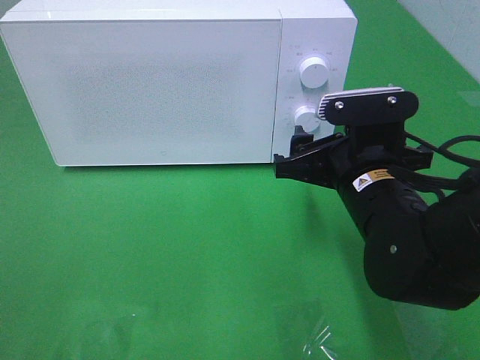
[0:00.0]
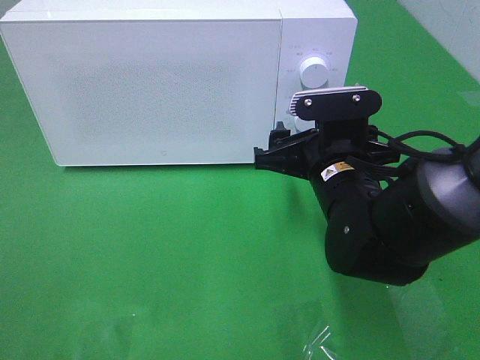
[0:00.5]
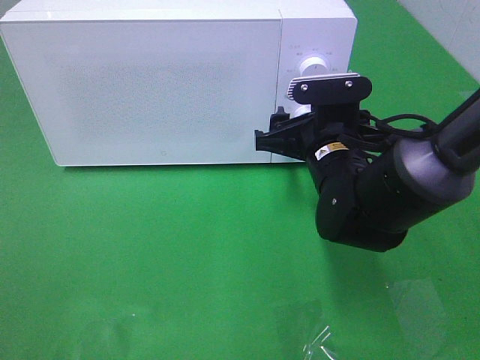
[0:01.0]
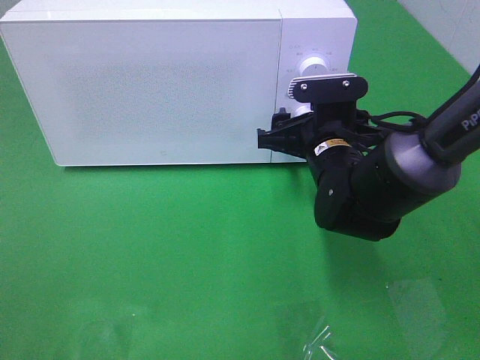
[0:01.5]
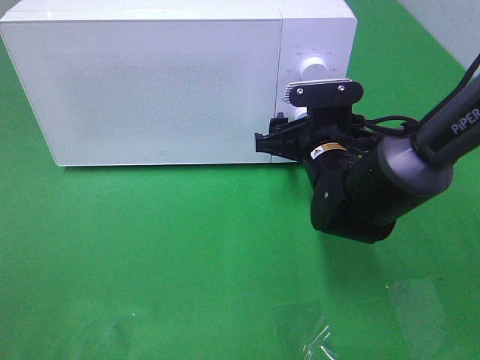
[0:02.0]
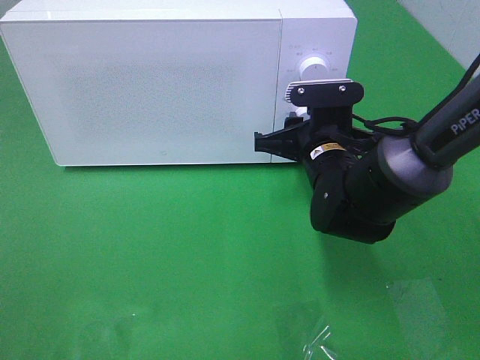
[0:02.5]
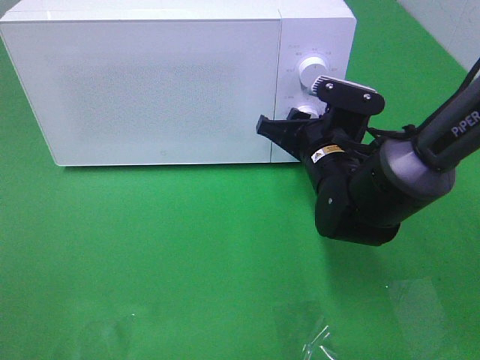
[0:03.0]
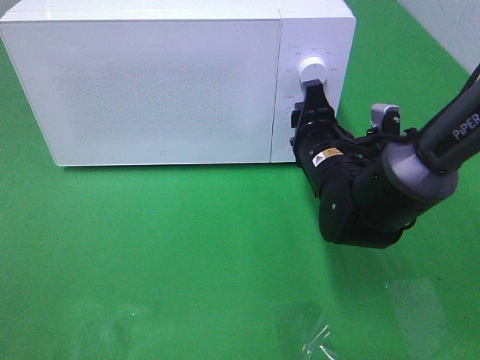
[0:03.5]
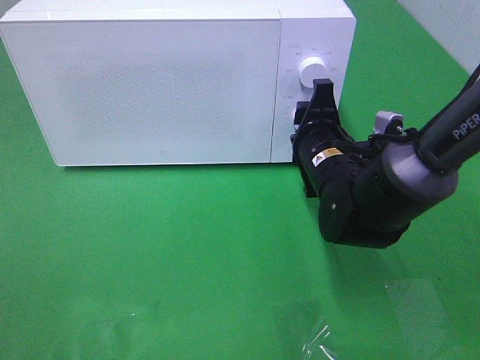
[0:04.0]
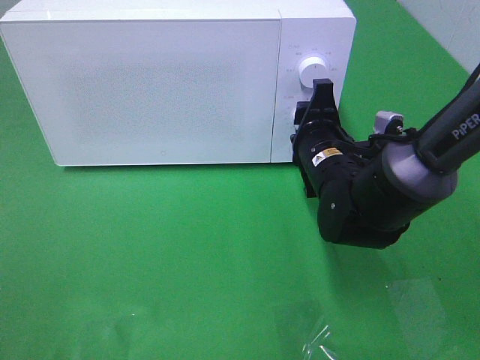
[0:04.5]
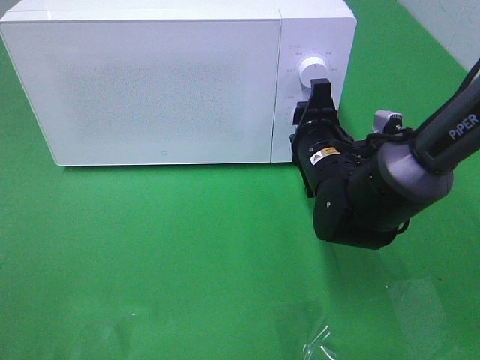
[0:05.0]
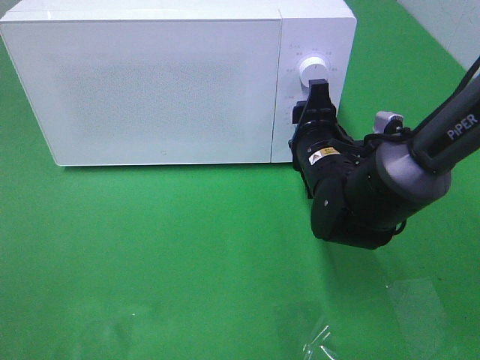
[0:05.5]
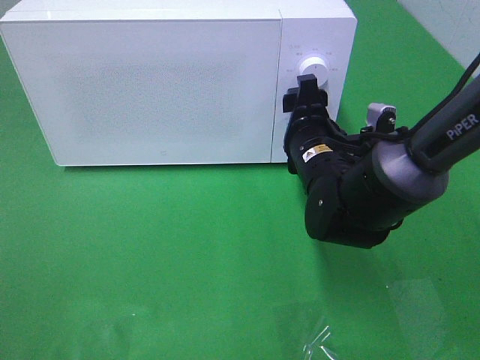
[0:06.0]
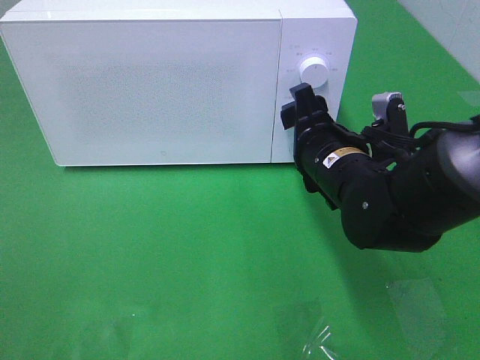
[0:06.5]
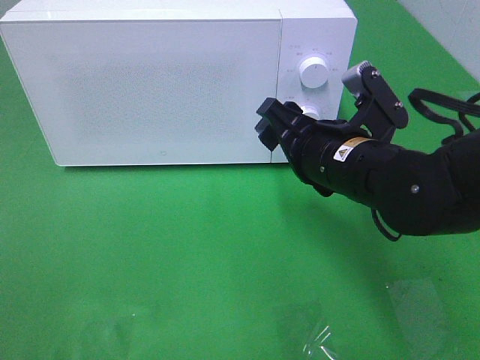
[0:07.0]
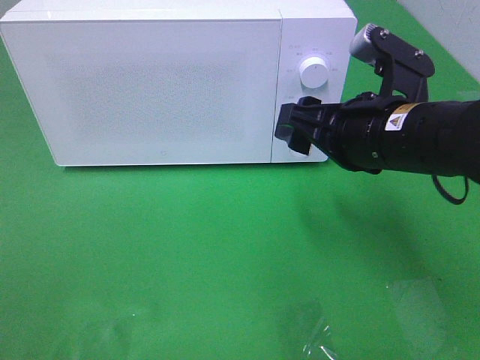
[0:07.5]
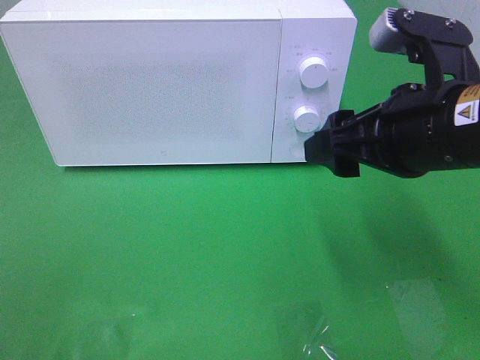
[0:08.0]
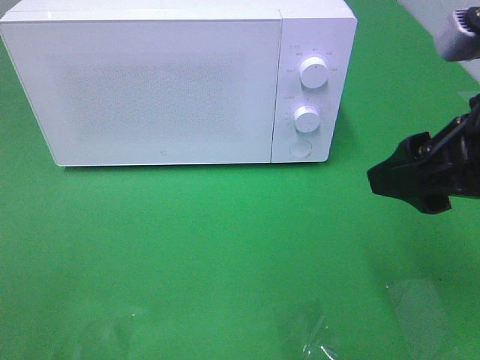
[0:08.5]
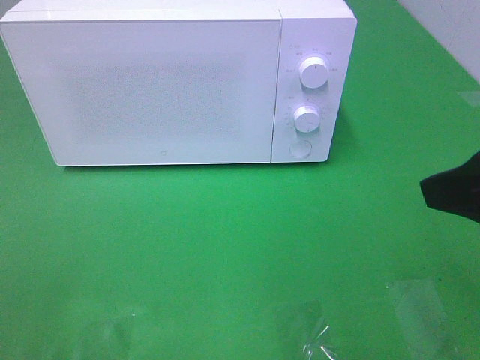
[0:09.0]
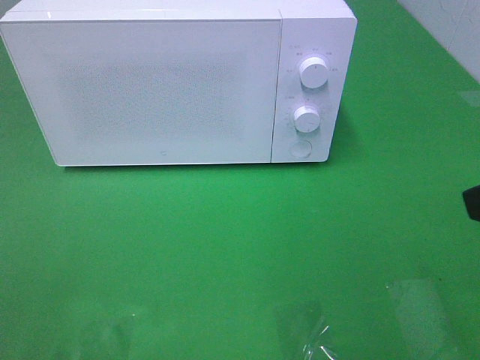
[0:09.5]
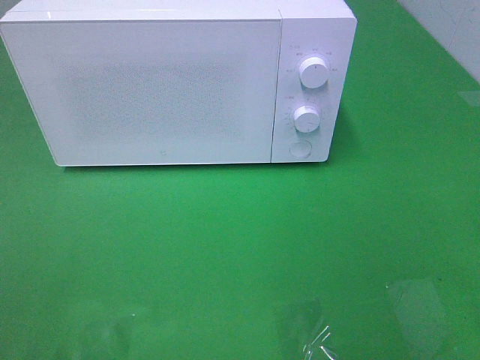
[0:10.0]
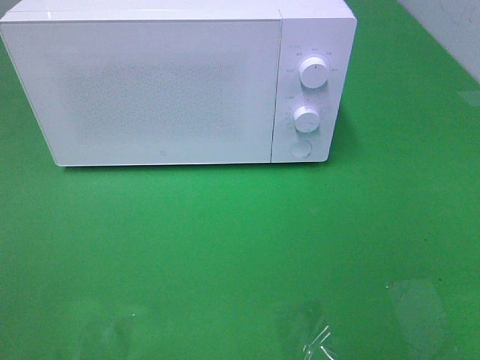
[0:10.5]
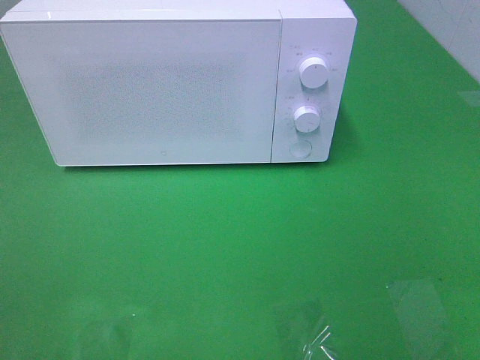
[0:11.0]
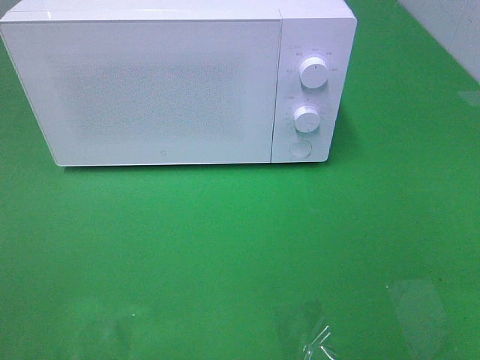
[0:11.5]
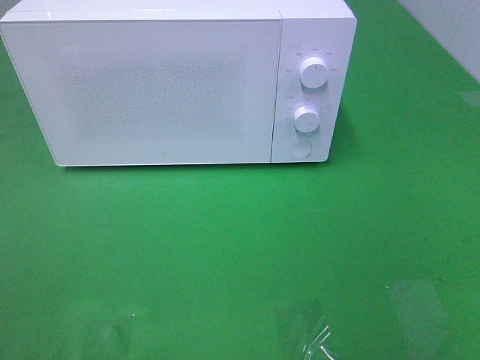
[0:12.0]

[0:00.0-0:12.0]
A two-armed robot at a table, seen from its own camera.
Task of the whole recording: Heat the burger.
Step, 0:00.0 to 0:06.0: Right hand: twist timer button.
0:00.0 to 0:02.0: The right gripper moves forward, some 10 cm.
0:02.0 to 0:04.0: The right gripper closes up.
0:04.0 to 0:06.0: The grippers stay close to where they were, moving slightly.
0:06.0 to 0:08.0: The right gripper moves upward, backward and to the right, some 20 cm.
0:08.0 to 0:10.0: The right gripper moves backward, to the right and upward, about 20 cm.

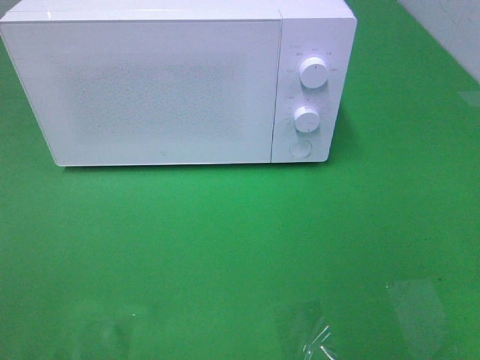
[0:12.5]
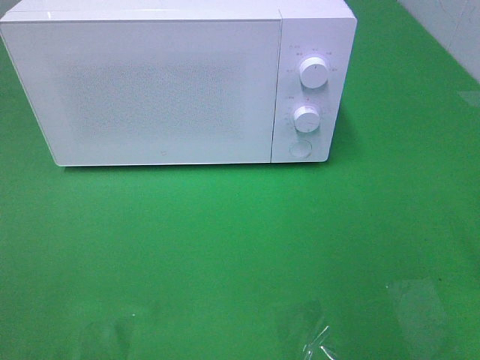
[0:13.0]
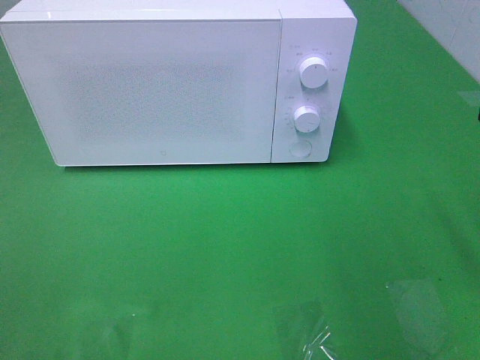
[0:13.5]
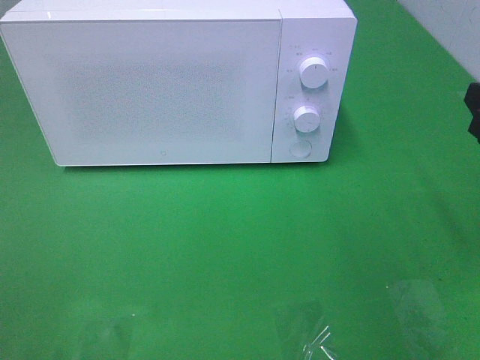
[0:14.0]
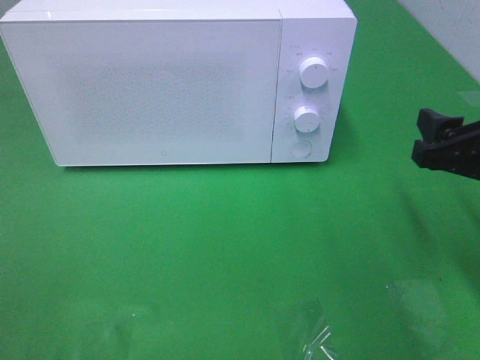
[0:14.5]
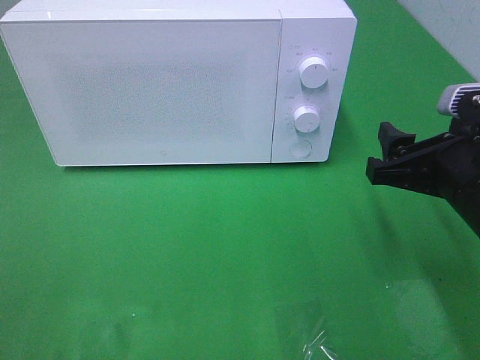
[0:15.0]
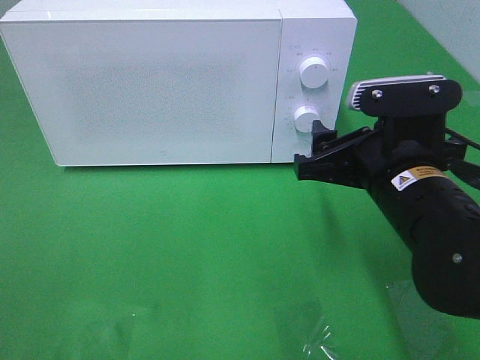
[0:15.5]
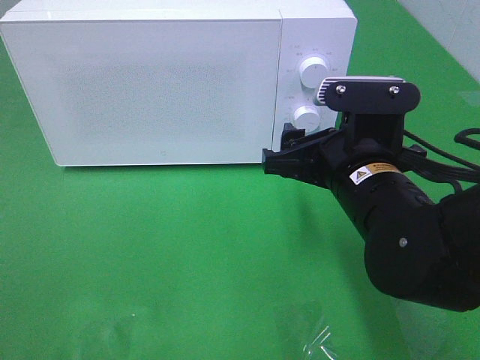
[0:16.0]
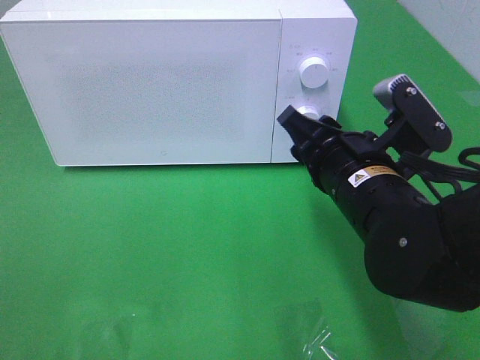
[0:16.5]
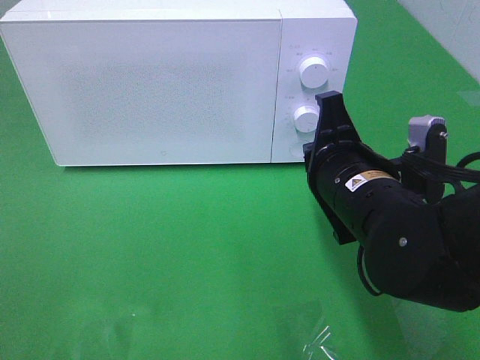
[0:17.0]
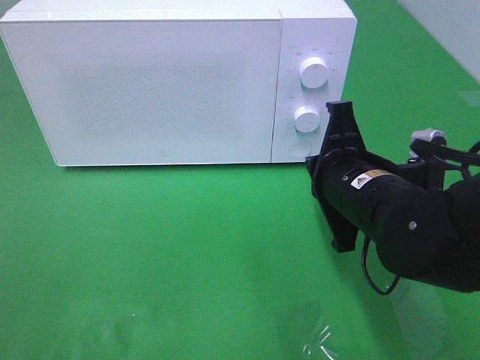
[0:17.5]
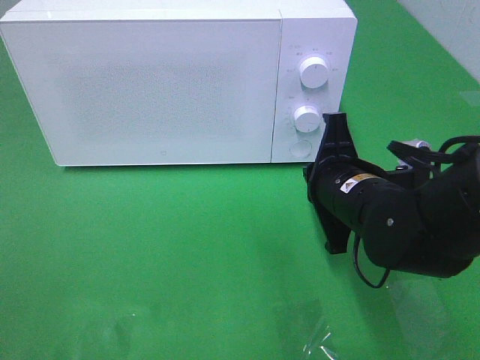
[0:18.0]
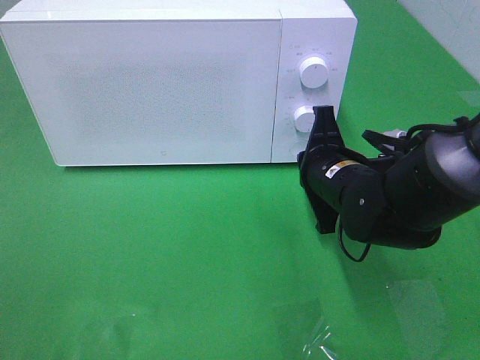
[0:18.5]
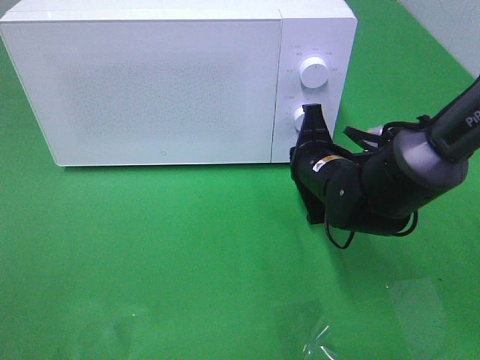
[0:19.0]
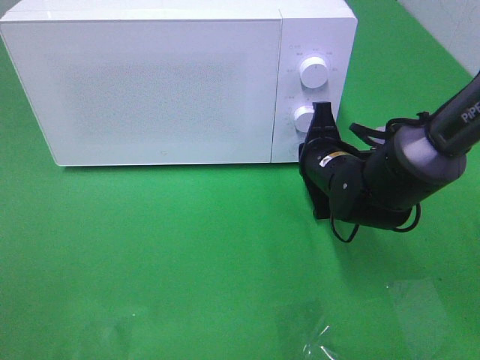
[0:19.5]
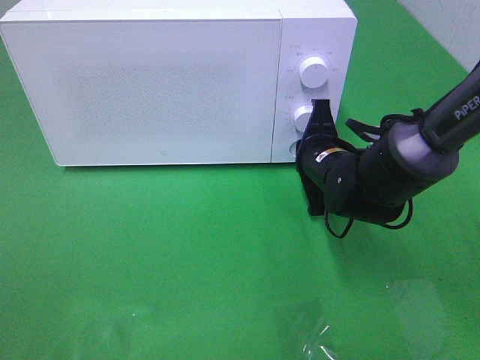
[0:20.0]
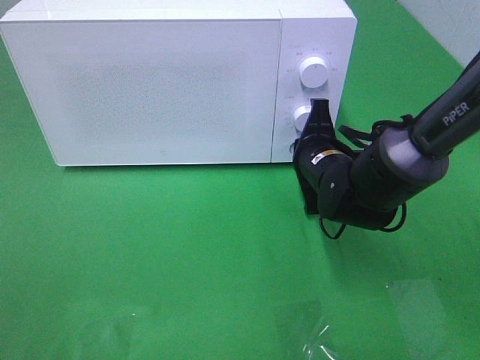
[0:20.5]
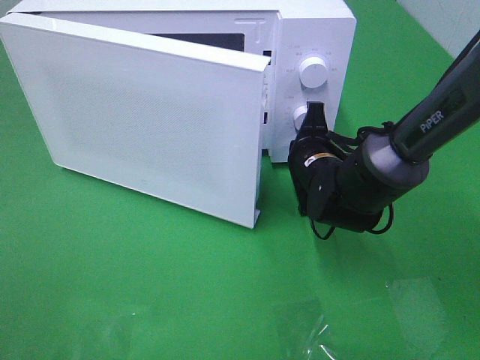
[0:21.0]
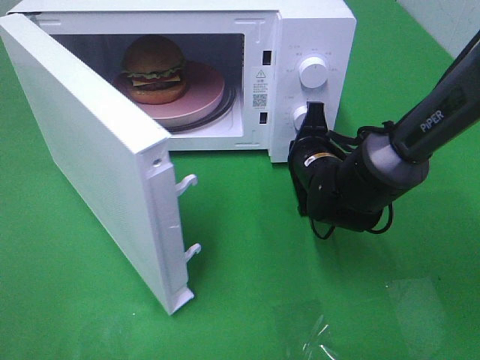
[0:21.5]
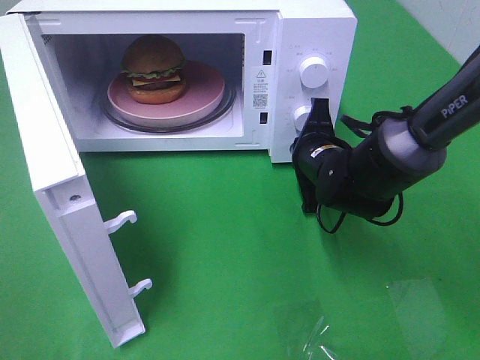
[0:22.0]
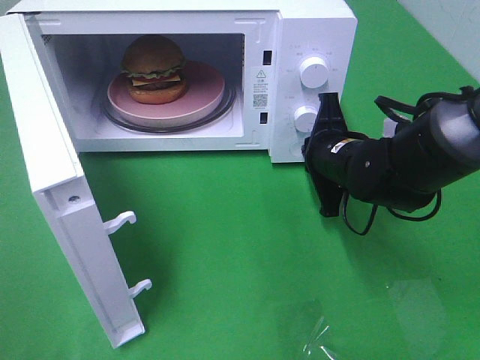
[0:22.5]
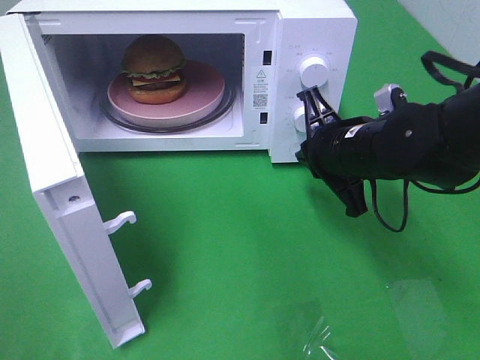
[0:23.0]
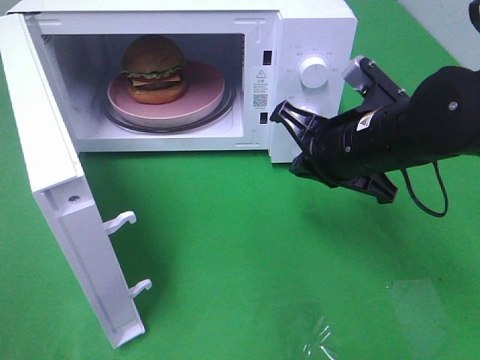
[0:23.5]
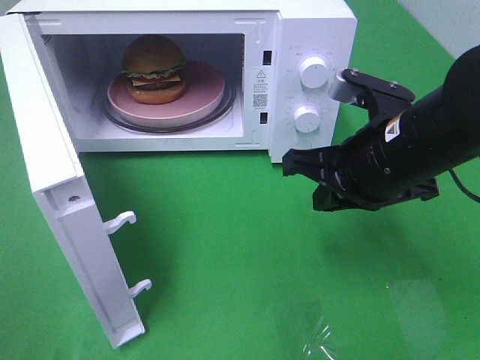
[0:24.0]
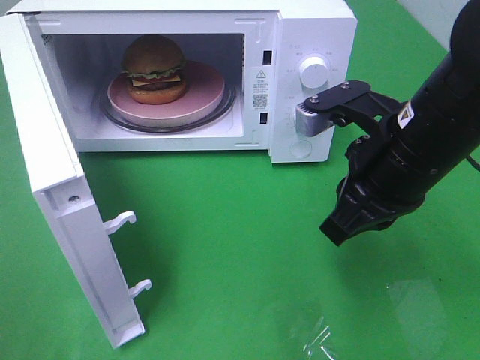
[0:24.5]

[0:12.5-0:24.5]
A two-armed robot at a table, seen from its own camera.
Task of the whole recording: Heat the burger.
Step, 0:12.5 to 0:22.5: Right hand: press the switch.
0:12.5 to 0:14.5: The right gripper shifts roughly 20 cm forward and downward.
0:14.5 to 0:16.5: The right gripper shifts roughly 15 cm to the left, and closes up.
0:16.5 to 0:18.5: The right gripper moves forward and downward, some 10 cm, and closes.
0:18.5 to 0:20.5: The right gripper ends up some 5 cm from where it was.
0:22.5 to 0:24.5: The right gripper heads upward and backward, covering about 15 cm.

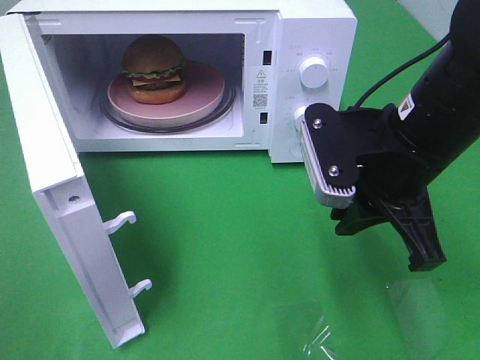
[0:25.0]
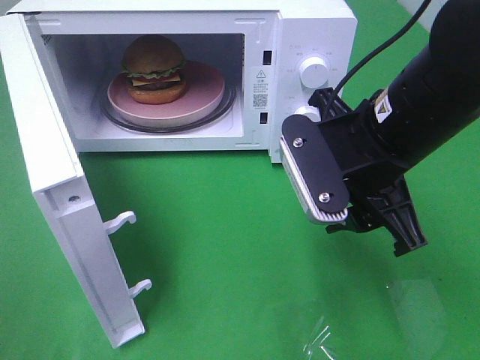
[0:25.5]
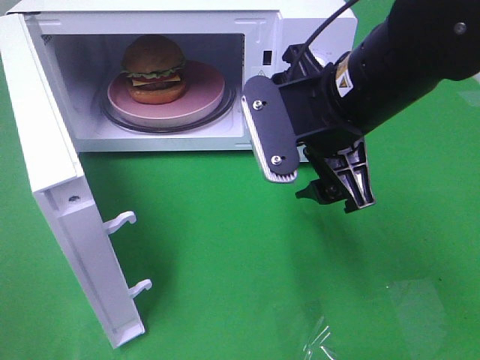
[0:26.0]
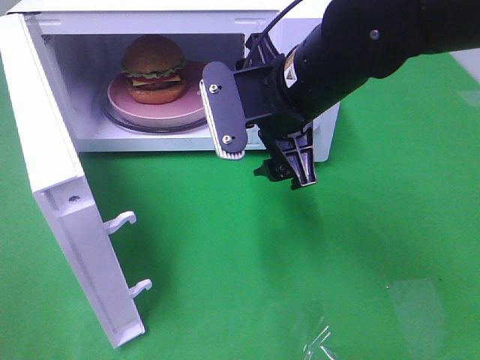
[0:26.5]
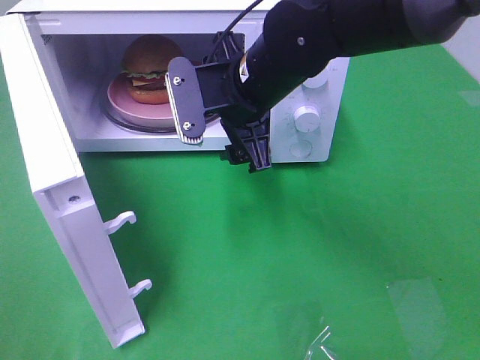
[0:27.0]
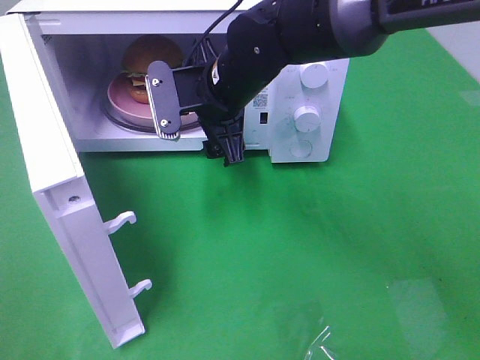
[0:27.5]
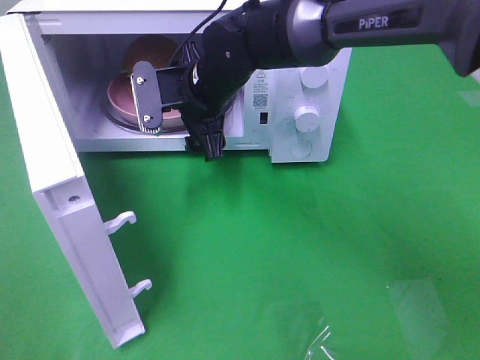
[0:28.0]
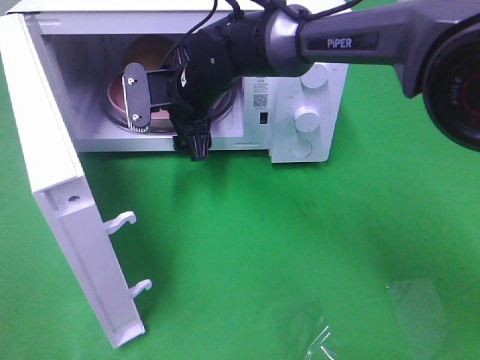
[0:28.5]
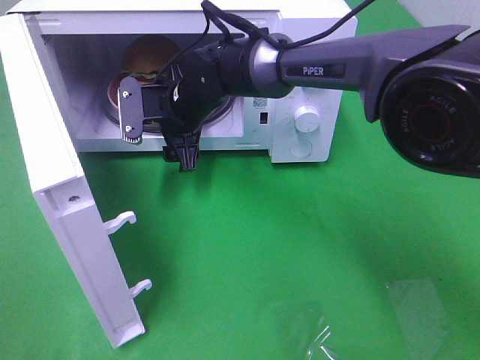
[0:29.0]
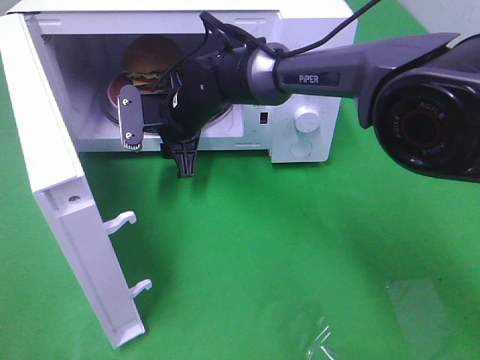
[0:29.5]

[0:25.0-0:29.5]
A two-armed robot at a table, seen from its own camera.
Task of the whole recording: Heat the burger.
0:25.0 to 0:27.0: The right gripper travels to the left and forward by some 15 cm, and opens its fingers.
0:27.0 to 0:29.5: The right gripper shifts approximately 15 cm downward, forward and to the left, and closes its fingers.